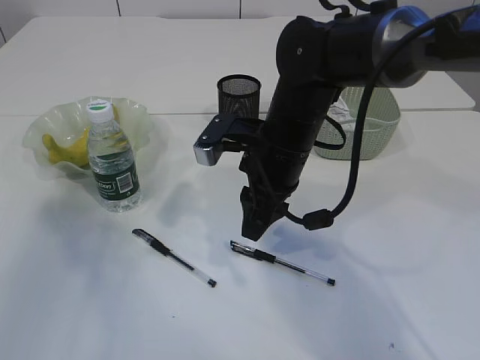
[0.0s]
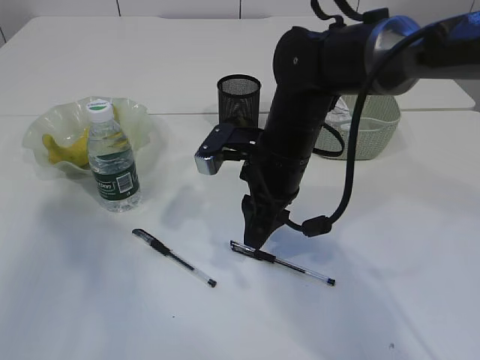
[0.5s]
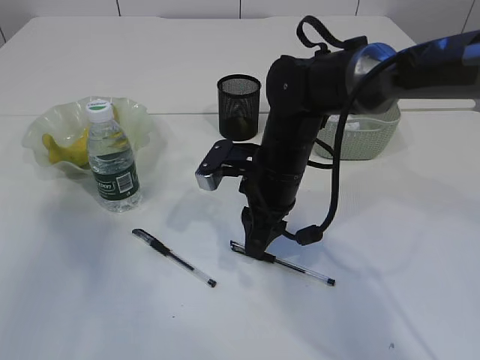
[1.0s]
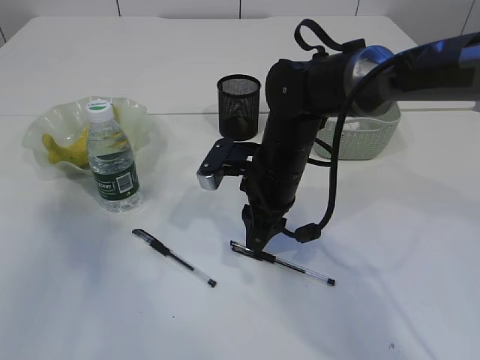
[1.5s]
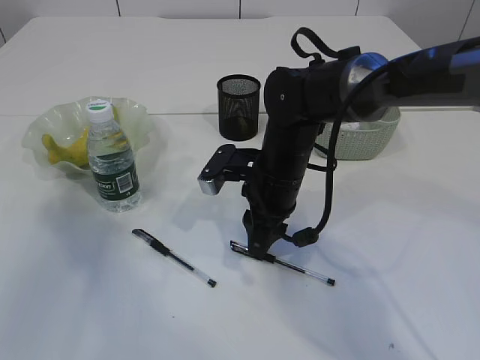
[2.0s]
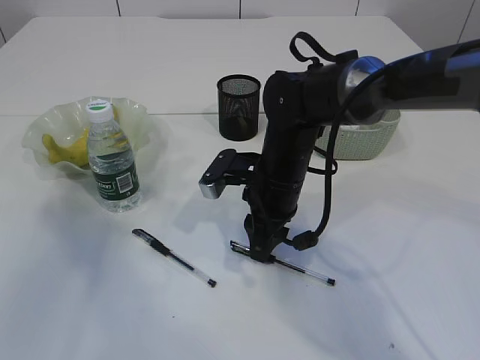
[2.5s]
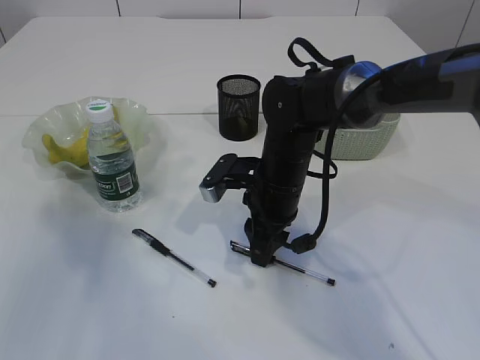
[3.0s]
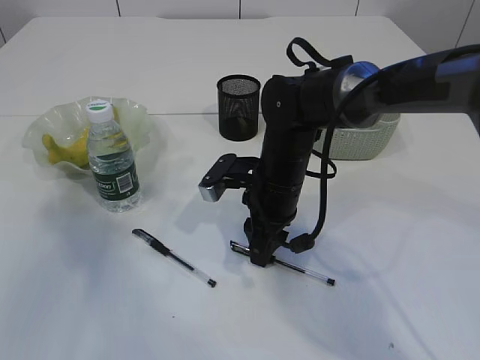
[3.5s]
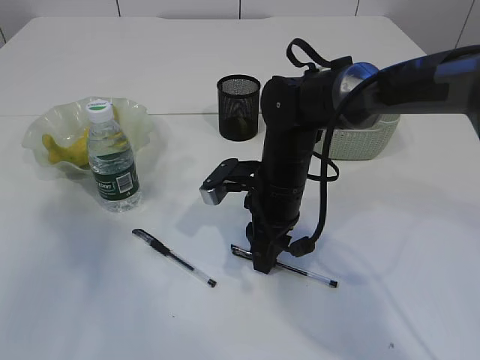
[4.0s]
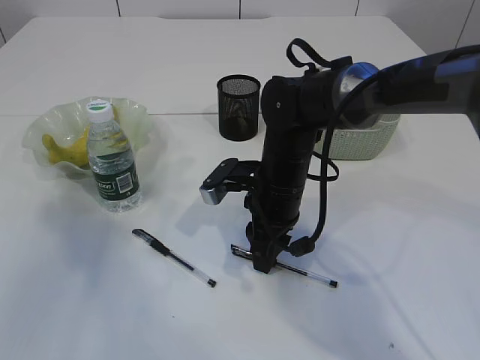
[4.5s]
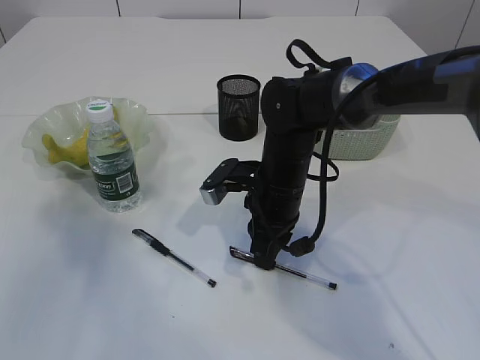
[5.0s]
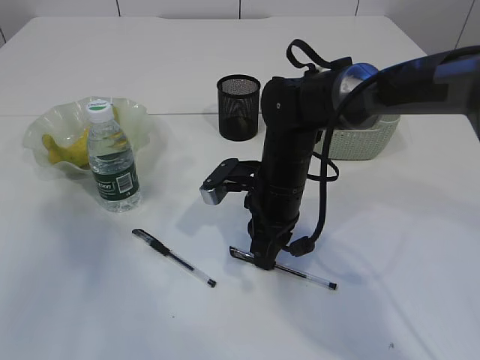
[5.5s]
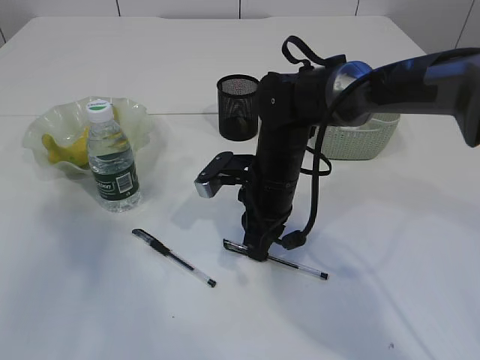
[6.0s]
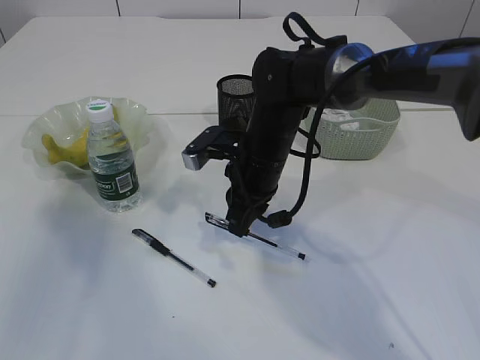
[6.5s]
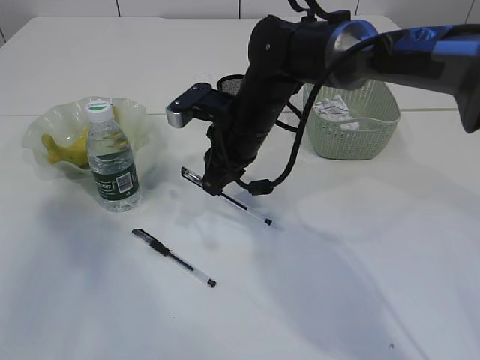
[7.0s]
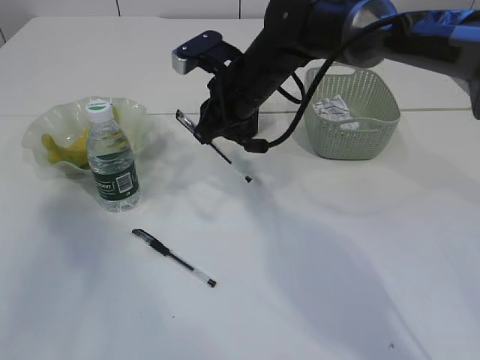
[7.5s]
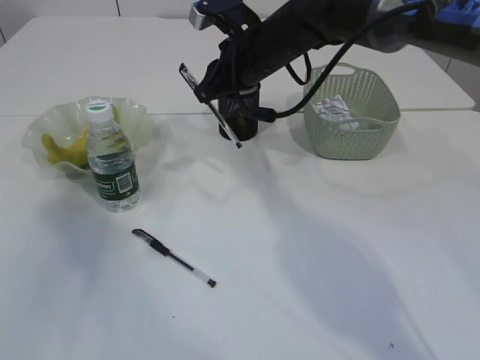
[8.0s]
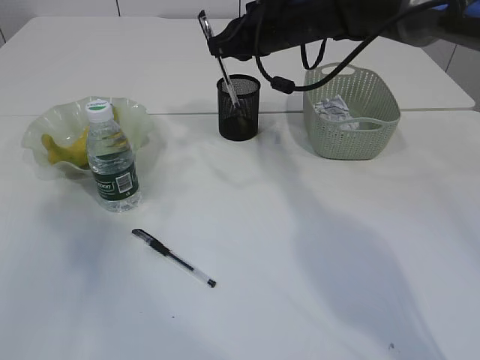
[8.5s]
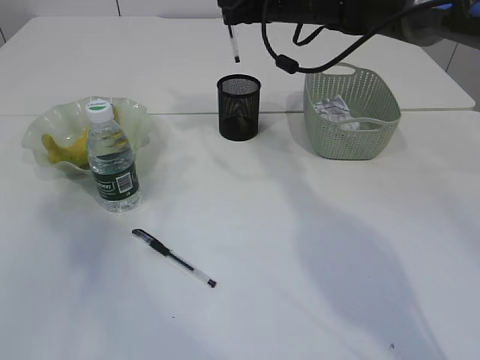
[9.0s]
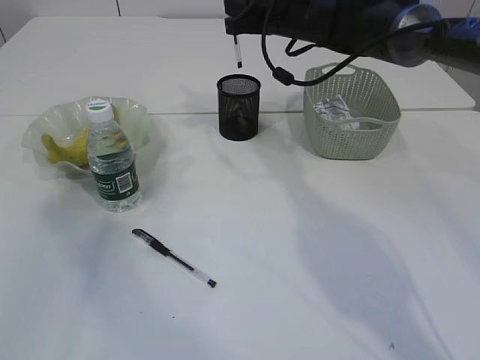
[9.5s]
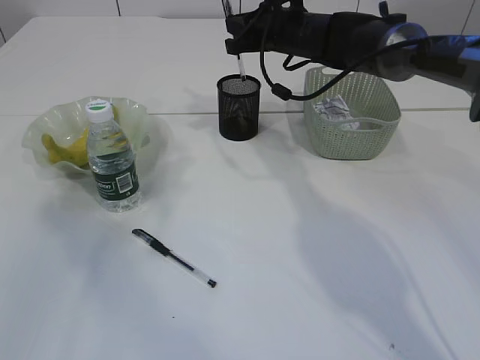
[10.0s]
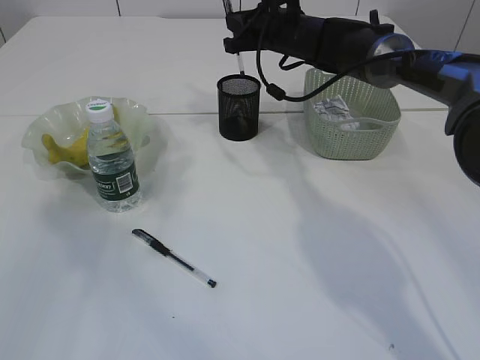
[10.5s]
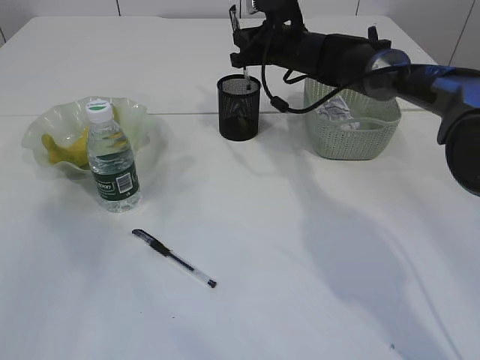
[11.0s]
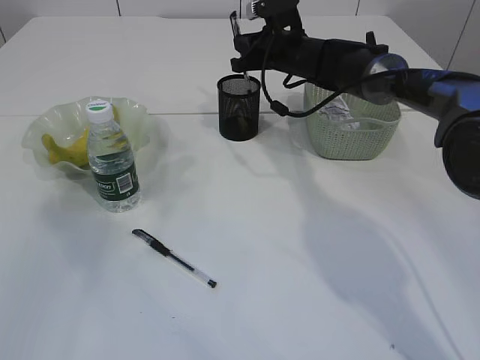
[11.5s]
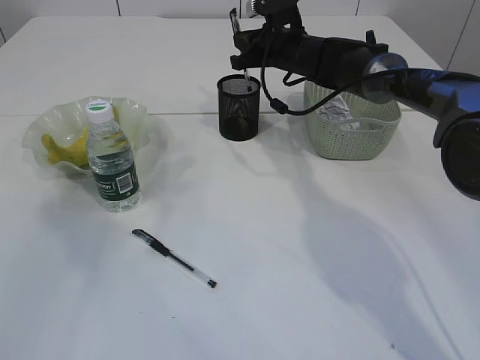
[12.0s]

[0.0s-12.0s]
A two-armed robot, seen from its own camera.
Step, 0.0s to 6.5s: Pick up the pen with right arm.
0.0s to 2.0s: The right gripper shifts about 5 cm downward.
2.0s to 4.0s: The grippers make only small movements.
4.0s to 6.0s: Both grippers stay about where they are.
6.0s to 8.0s: The right gripper shifts approximately 15 cm upward and forward.
8.0s to 10.0s: The right gripper moves forward, roughly 5 cm.
10.0s to 12.0s: There are only small adjustments of the grippers.

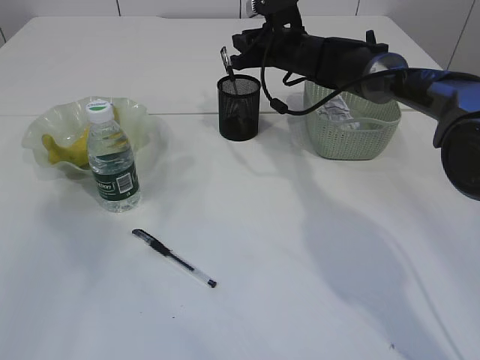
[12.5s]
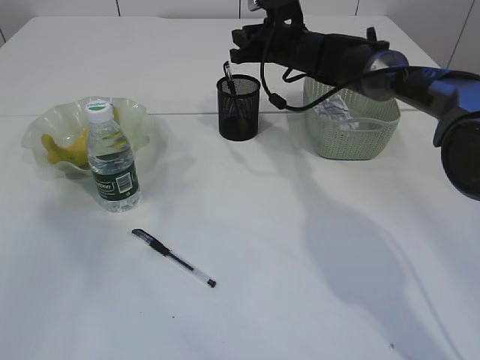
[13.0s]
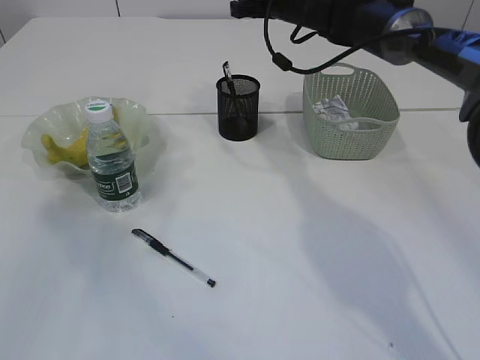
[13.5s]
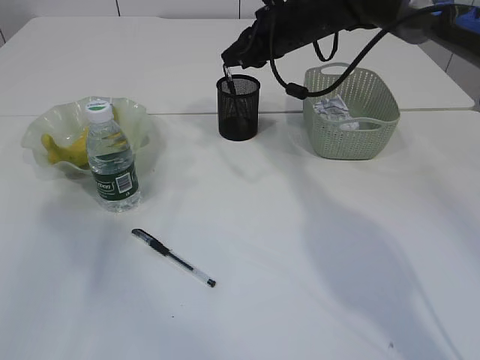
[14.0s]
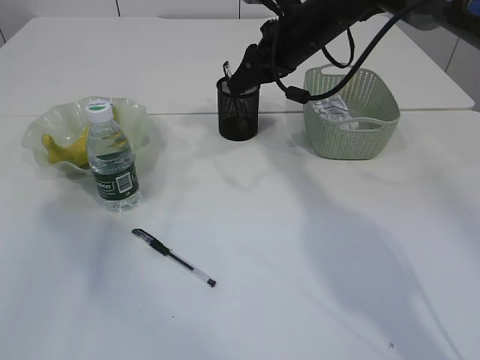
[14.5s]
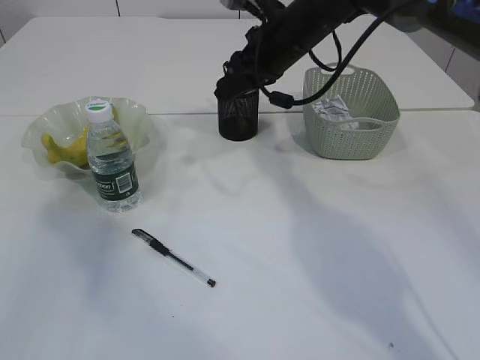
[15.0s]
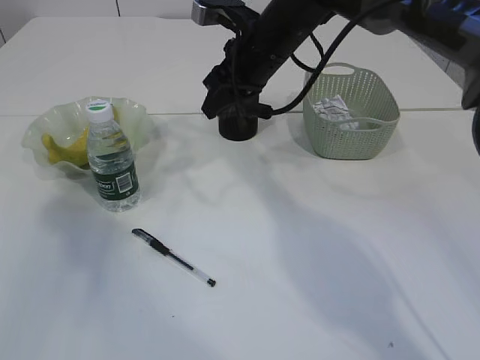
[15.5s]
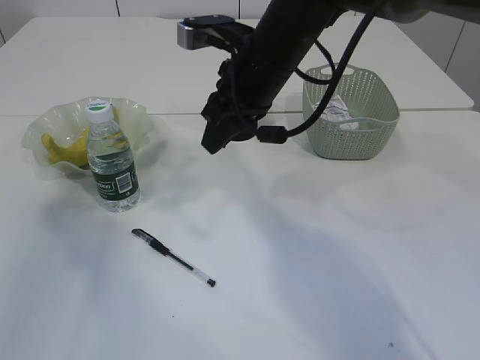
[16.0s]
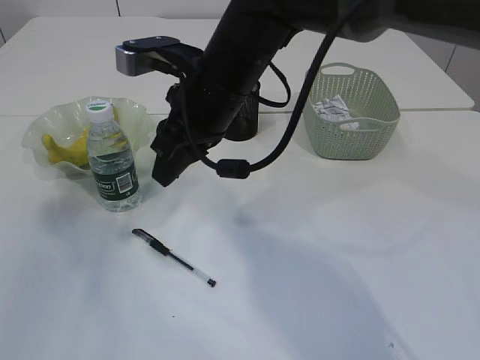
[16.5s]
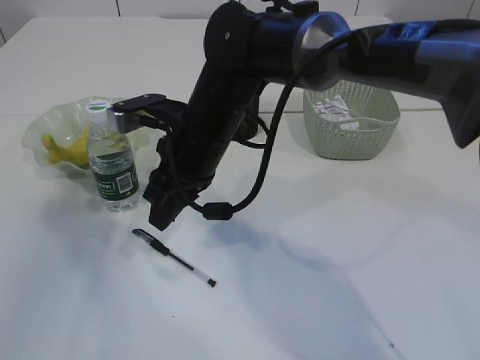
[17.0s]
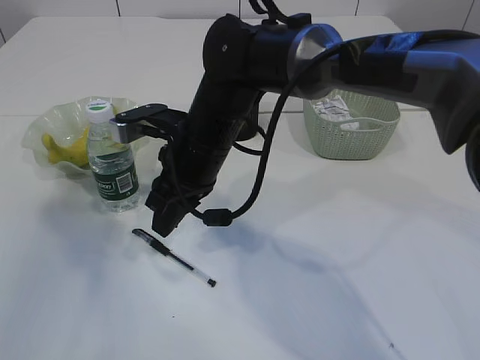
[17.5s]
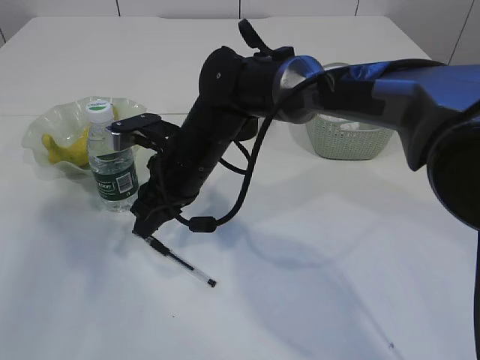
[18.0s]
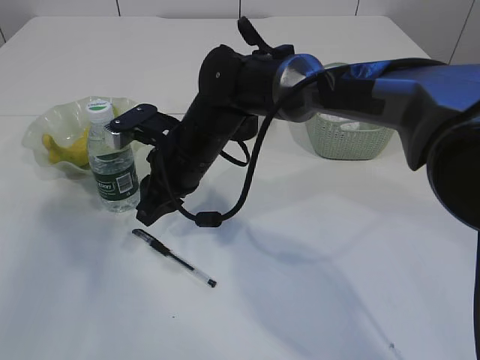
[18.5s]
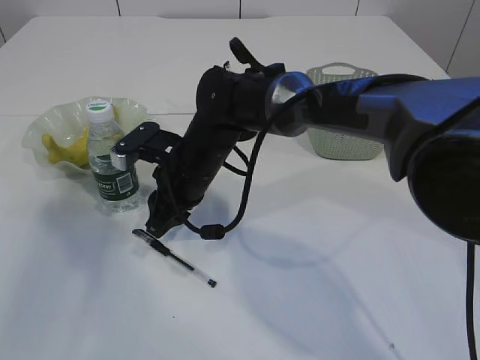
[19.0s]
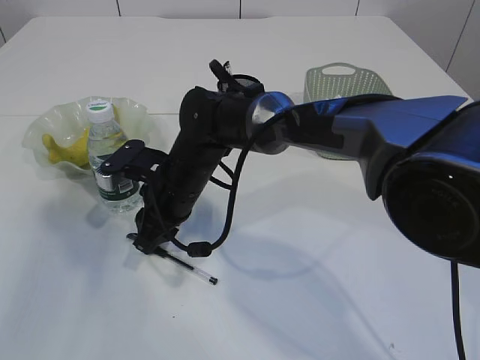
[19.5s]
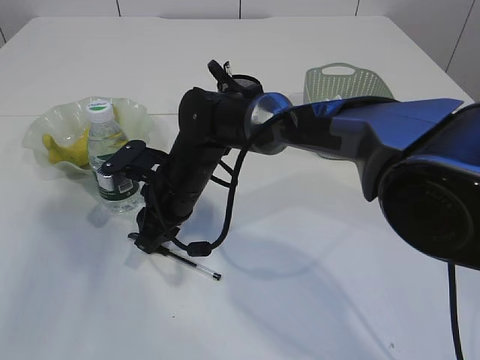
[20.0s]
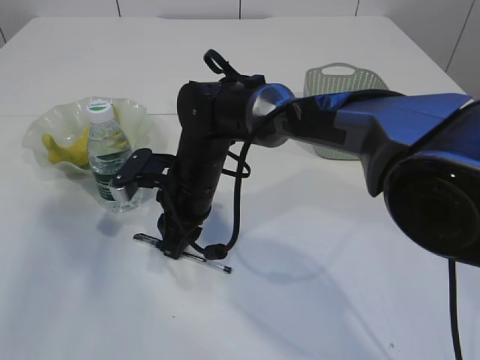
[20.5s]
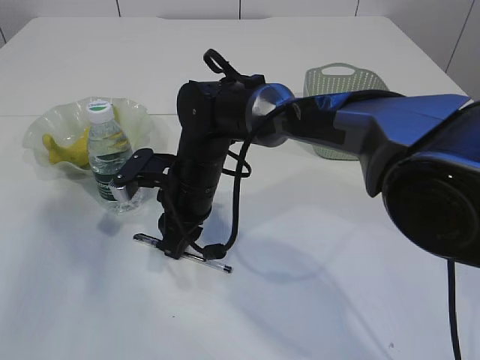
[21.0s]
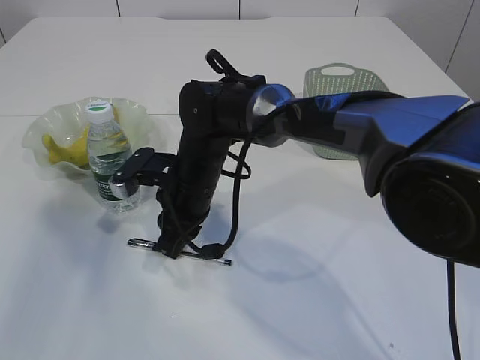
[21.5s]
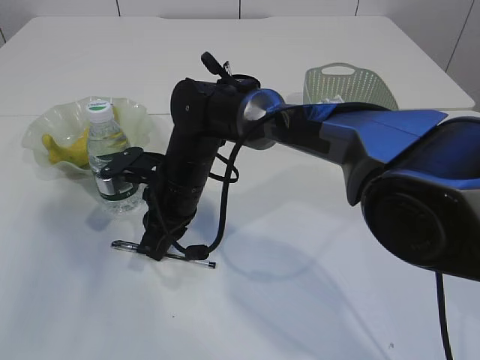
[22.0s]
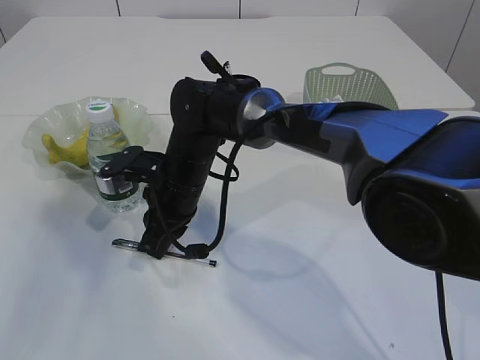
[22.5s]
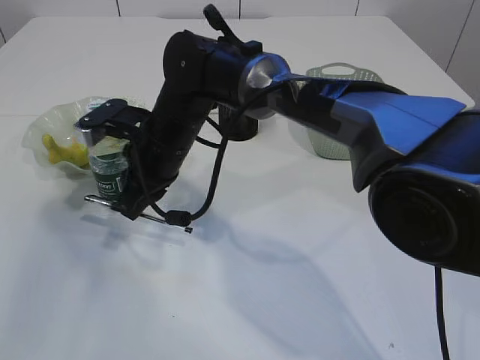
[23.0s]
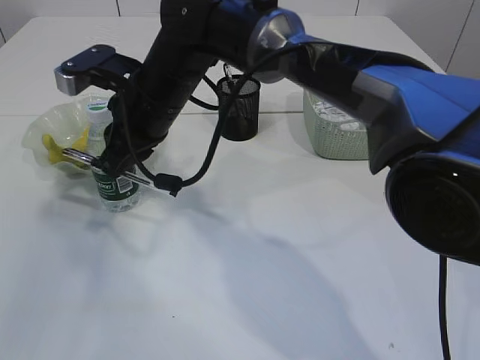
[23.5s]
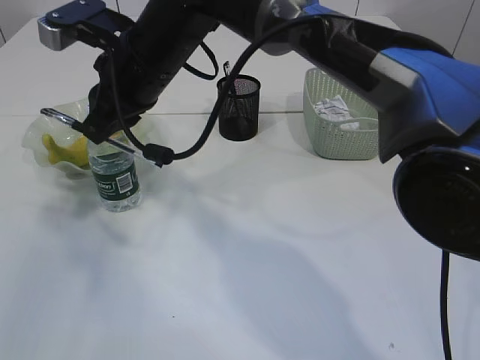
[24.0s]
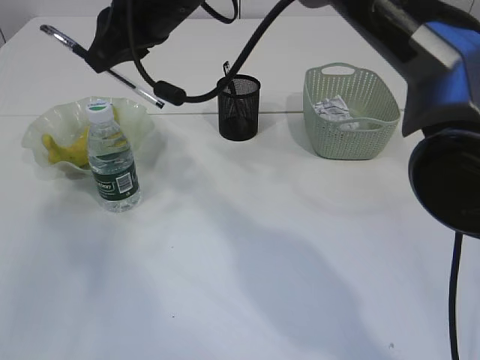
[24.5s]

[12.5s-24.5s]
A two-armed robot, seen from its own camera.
Step, 13.0s to 22.5s: Pick up the pen with right arm.
12.5s to 14.5s: The right gripper goes approximately 10 cm backward and upward.
14.5s to 16.5s: The right gripper moves backward and to the left, approximately 15 cm.
16.5s to 18.5s: The right gripper heads downward, covering some 10 cm.
20.5s to 22.5s: The grippers stay close to where they were, moving slightly.
22.5s to 24.5s: The right gripper shifts roughly 20 cm upward.

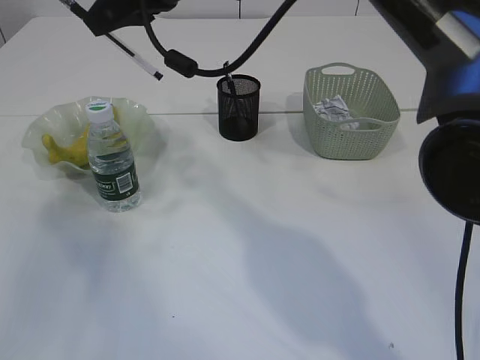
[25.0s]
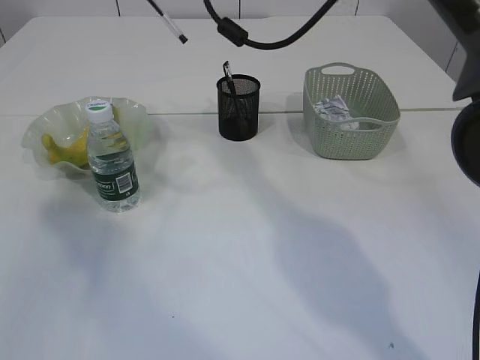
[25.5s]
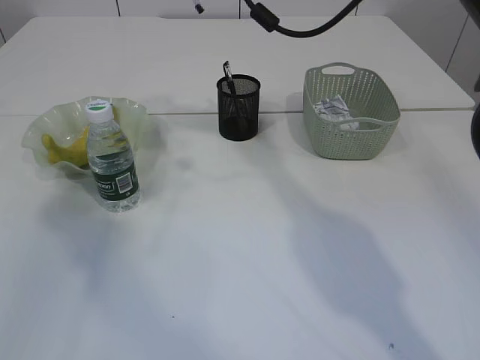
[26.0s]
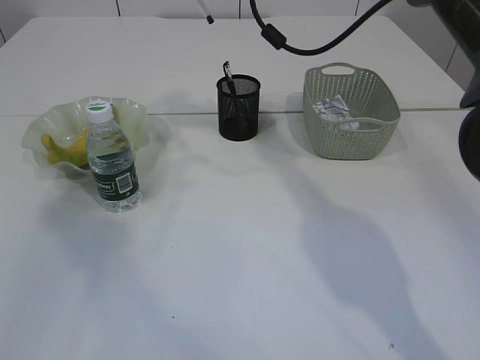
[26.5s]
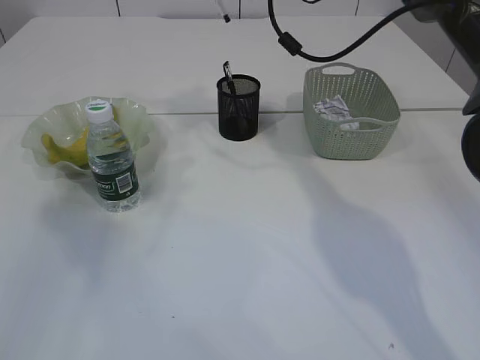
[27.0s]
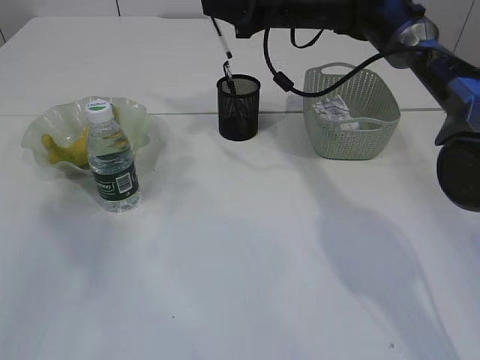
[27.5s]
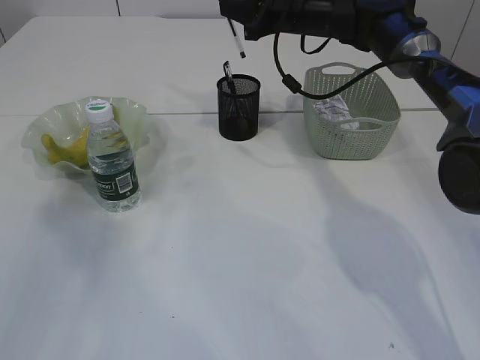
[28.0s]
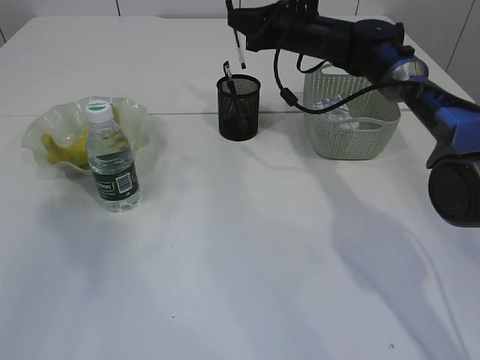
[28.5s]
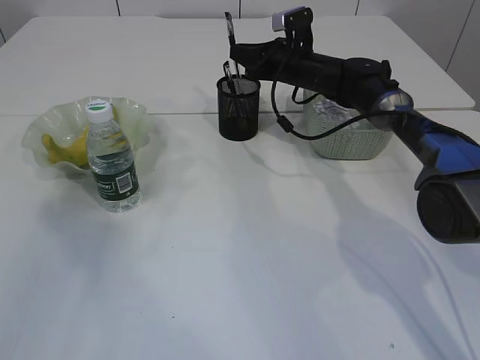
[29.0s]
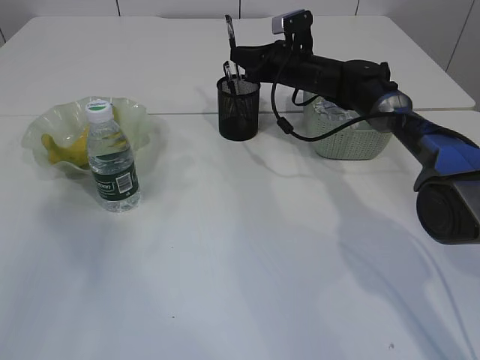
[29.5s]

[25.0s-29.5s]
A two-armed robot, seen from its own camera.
25.0s to 27.0s: The right gripper is displaced to the right and forward by some 15 cm.
27.0s to 29.5s: The right gripper travels downward and forward by approximately 20 cm.
